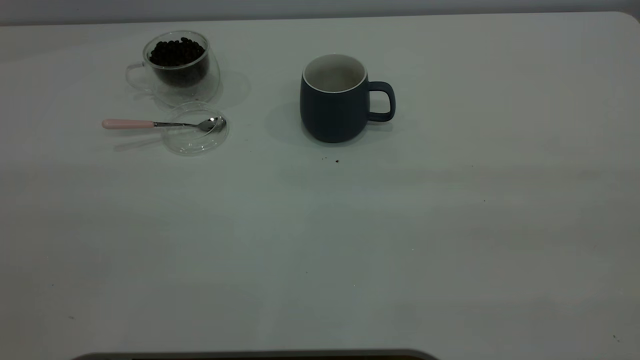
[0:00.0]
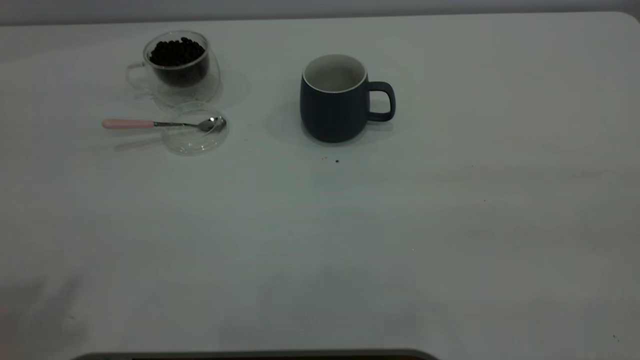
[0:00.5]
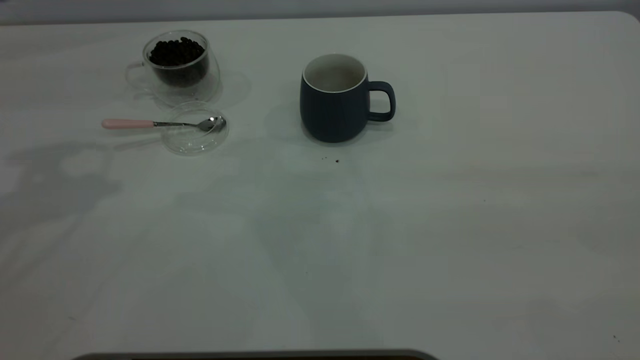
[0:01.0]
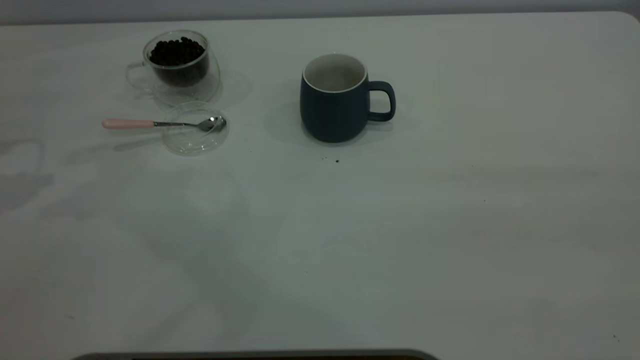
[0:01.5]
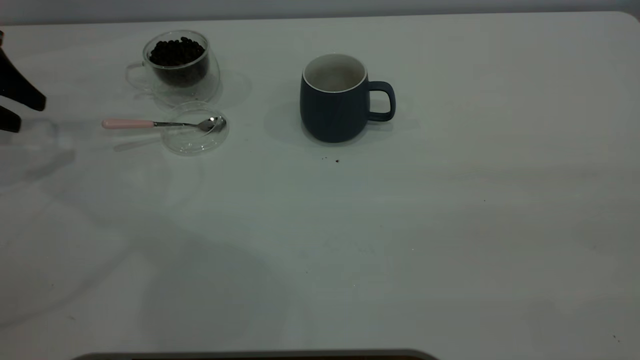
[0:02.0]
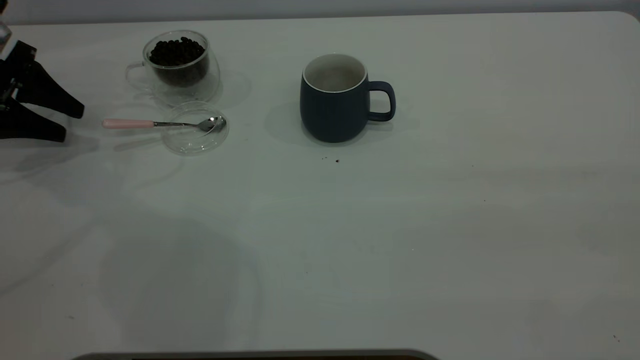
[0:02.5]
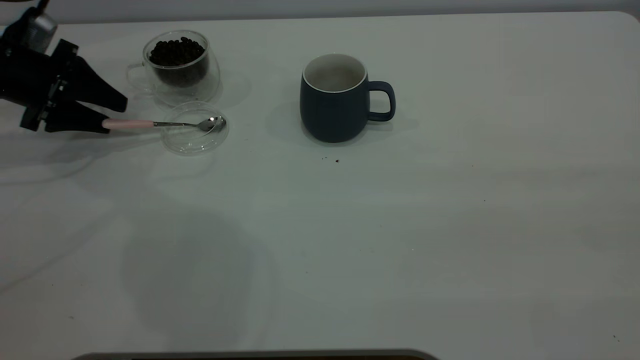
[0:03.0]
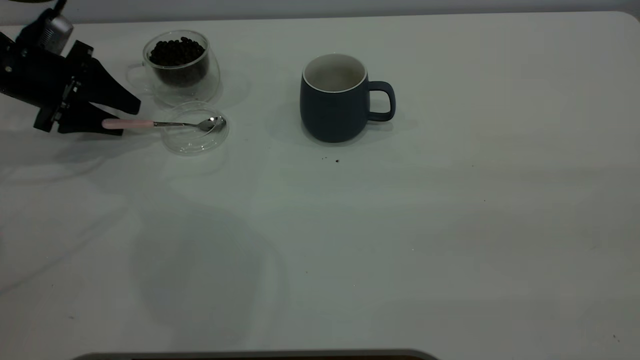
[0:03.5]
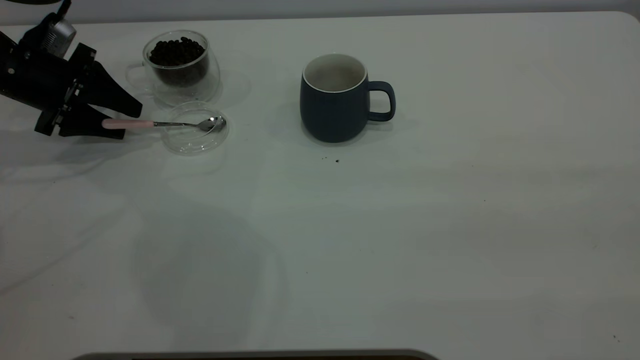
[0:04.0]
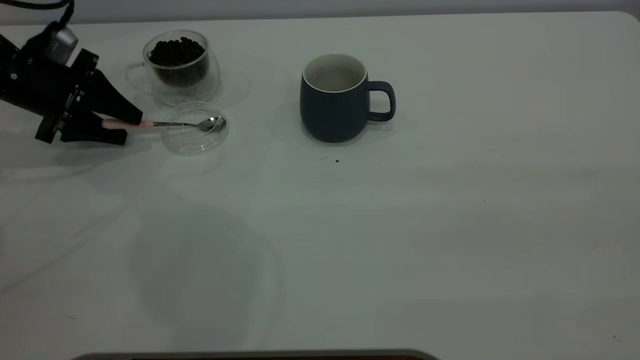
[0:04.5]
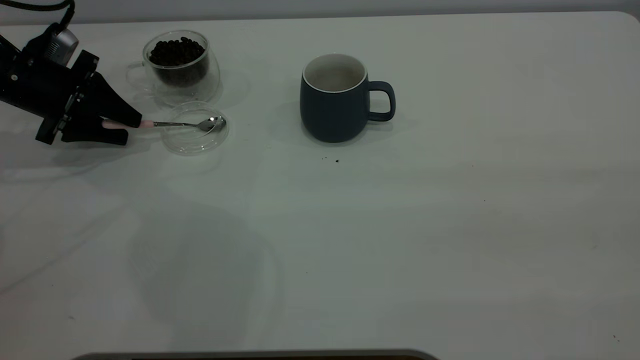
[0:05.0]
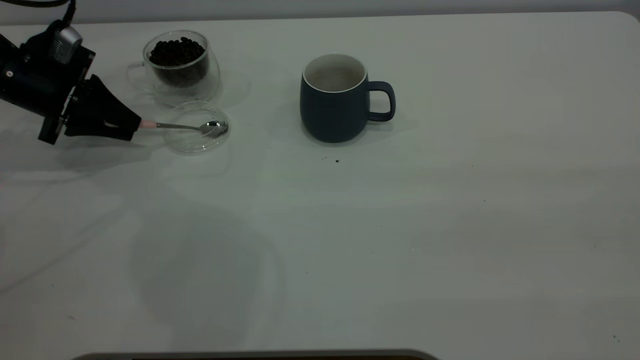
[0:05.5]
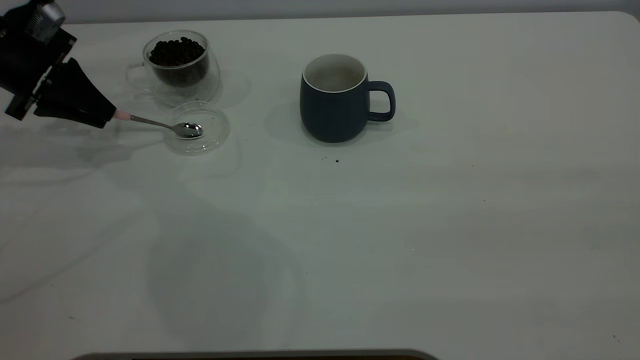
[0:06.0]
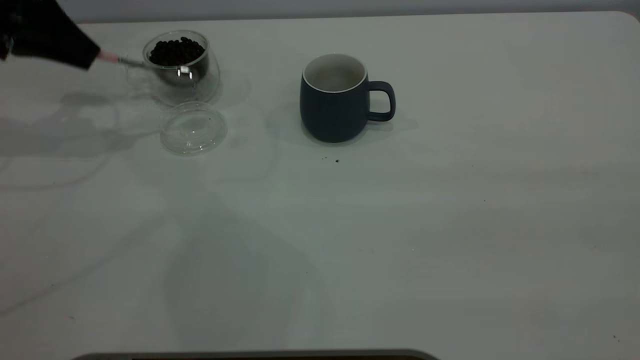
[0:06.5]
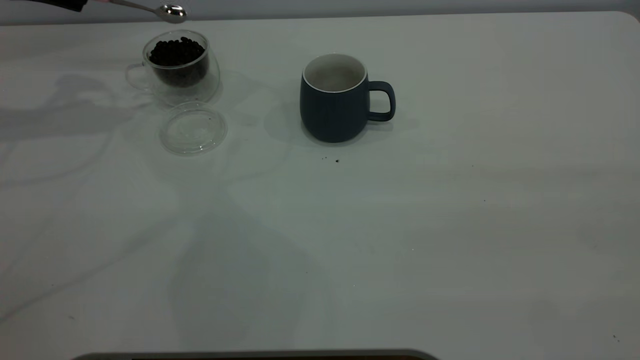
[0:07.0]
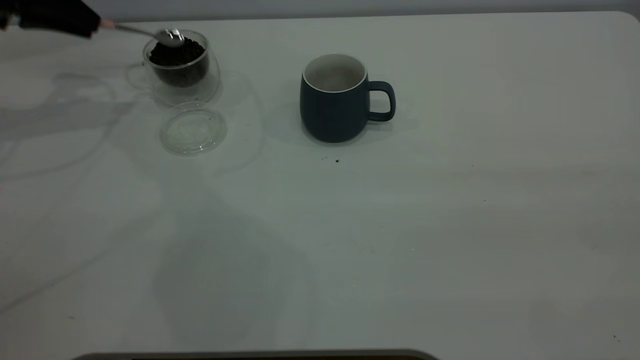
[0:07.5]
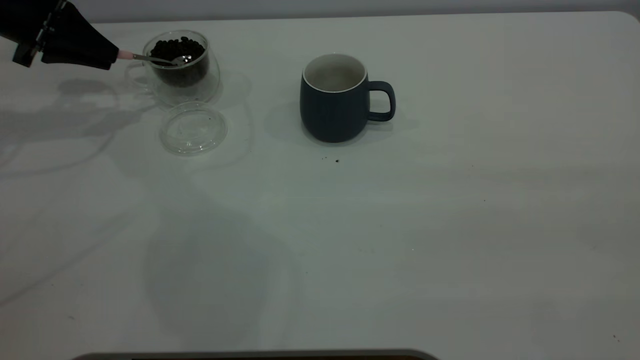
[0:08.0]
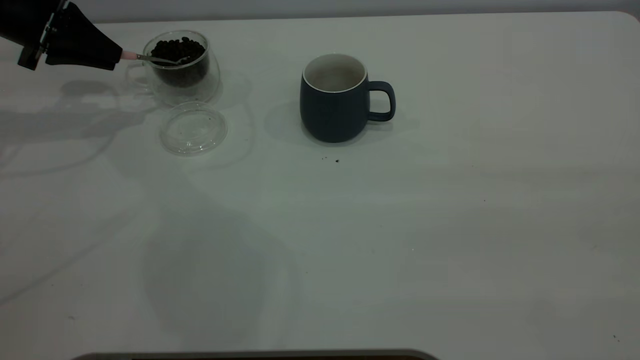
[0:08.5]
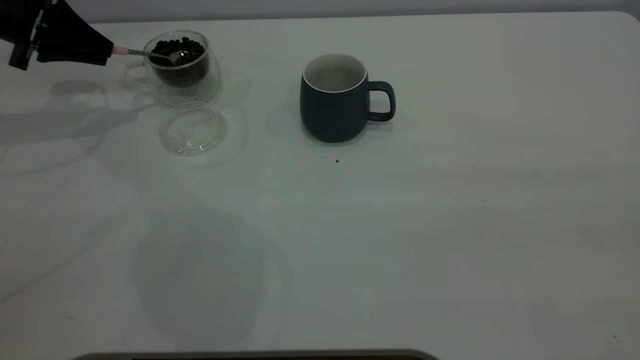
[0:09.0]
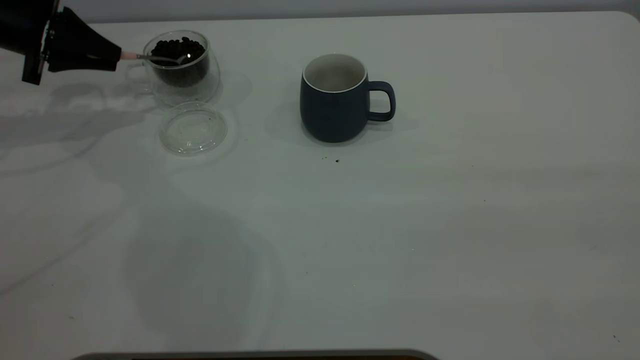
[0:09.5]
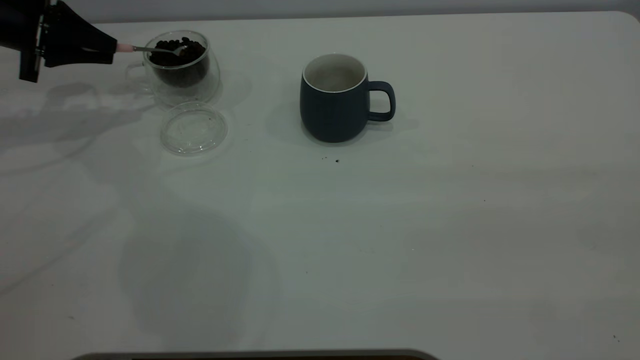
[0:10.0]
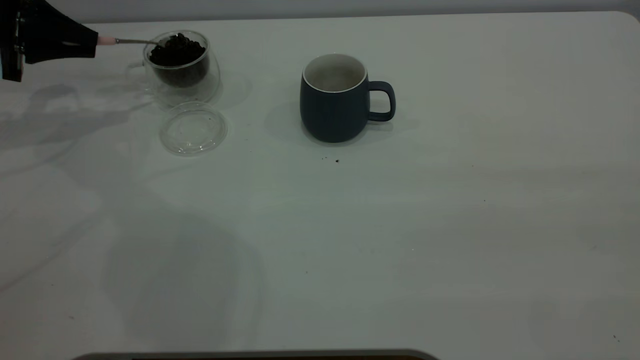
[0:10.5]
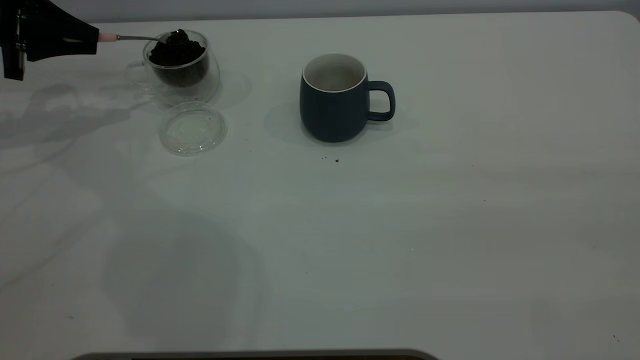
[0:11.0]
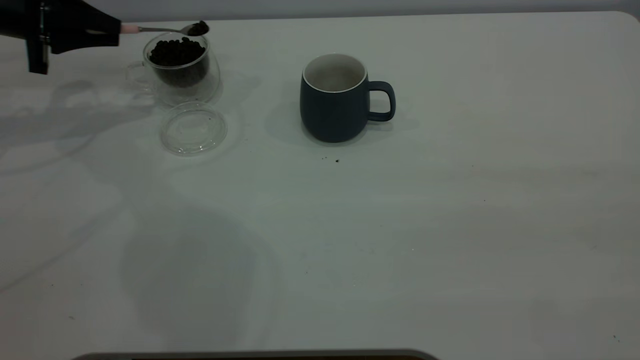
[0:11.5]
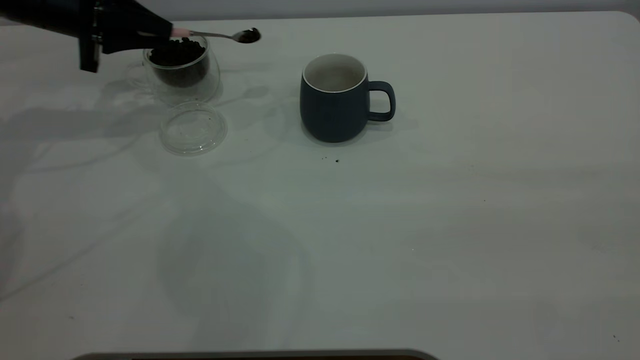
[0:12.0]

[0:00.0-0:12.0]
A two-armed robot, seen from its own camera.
Task of the whole recording: the right gripper place the grey cup in the center of the table, the left gripper take the pink spoon from the cup lid and scoop out the coffee beans from the coffee cup and put them into the grey cup, the left gripper put the spoon back into the cup lid.
Step, 0:00.0 to 0:06.0: Pick up the spoon.
0:00.0 to 0:02.0: The left gripper moves forward and downward, approximately 50 cm.
0:02.0 to 0:04.0: The left gripper heads to the right and downward, covering approximately 10 cm.
0:04.0 to 0:06.0: The left gripper closes.
0:06.0 to 0:08.0: The left gripper reaches some 10 cm upward, then returns.
0:08.0 to 0:10.0: The grippers stay close to where they were, moving slightly.
0:10.0 to 0:12.0: The left gripper heads to the right, covering about 10 cm.

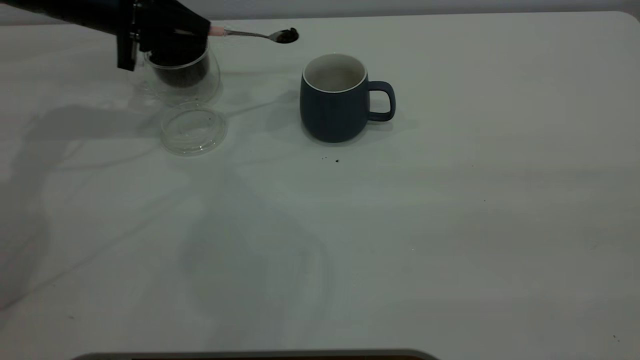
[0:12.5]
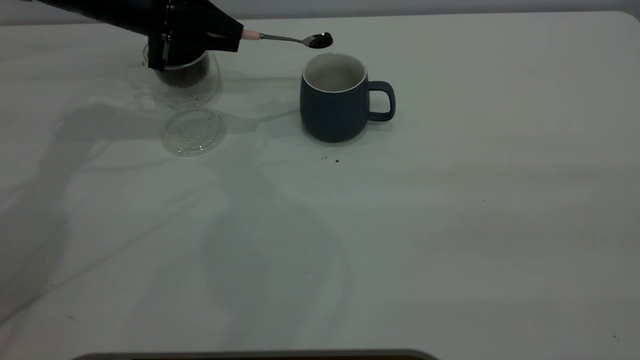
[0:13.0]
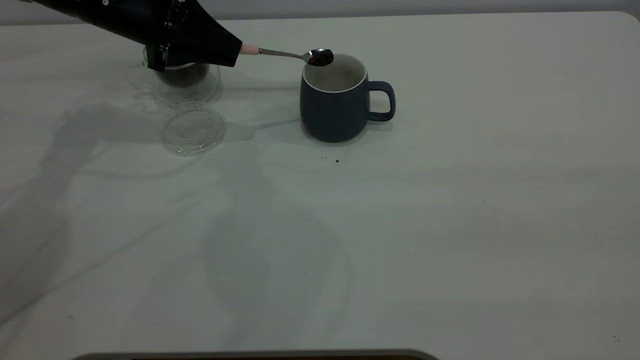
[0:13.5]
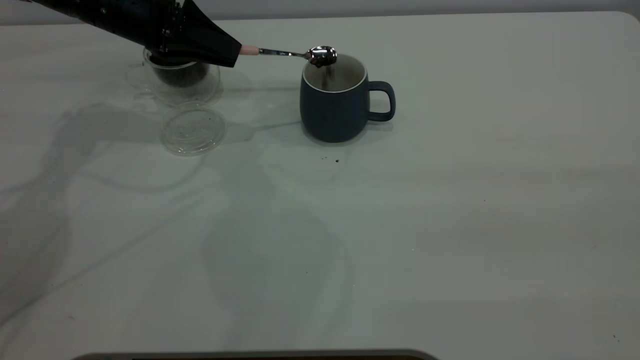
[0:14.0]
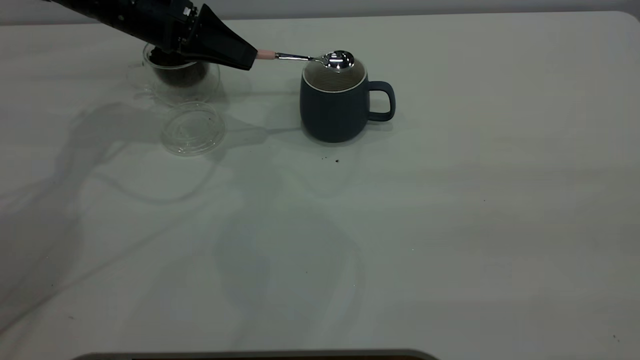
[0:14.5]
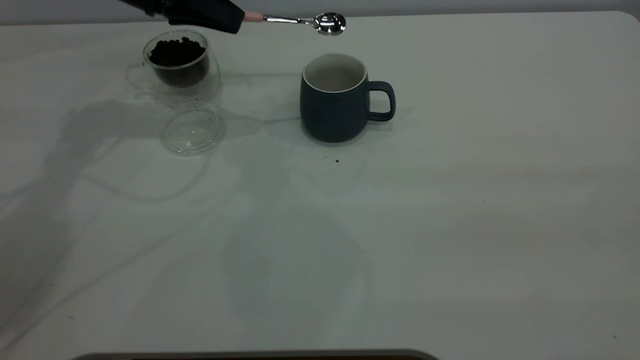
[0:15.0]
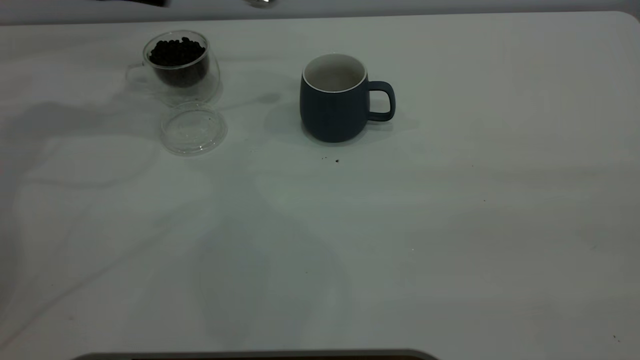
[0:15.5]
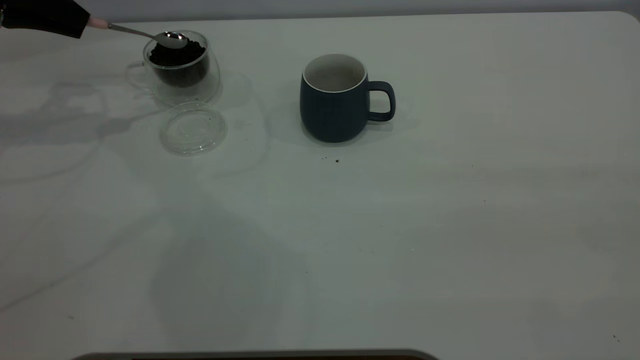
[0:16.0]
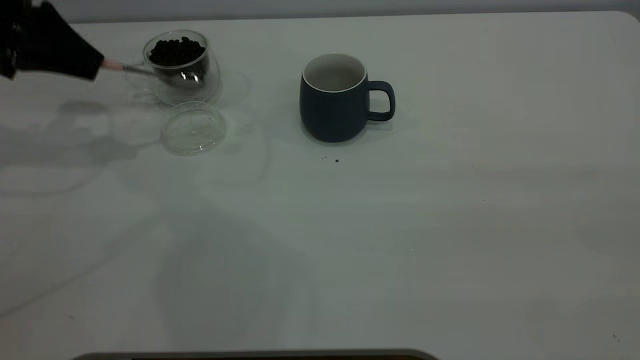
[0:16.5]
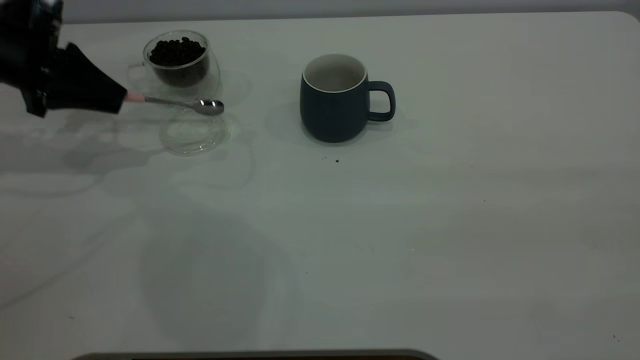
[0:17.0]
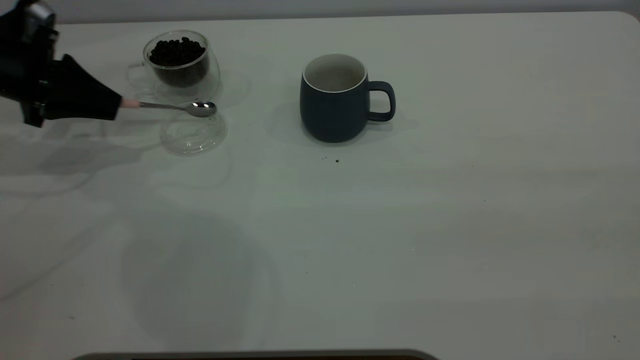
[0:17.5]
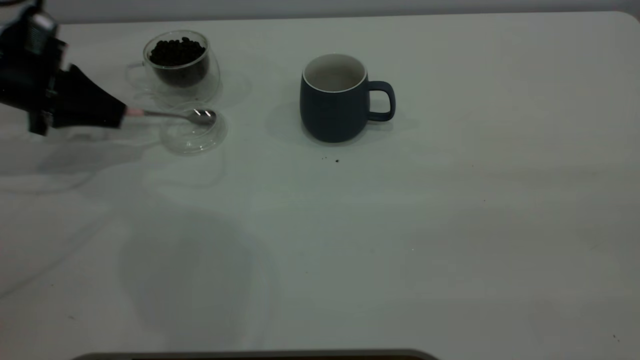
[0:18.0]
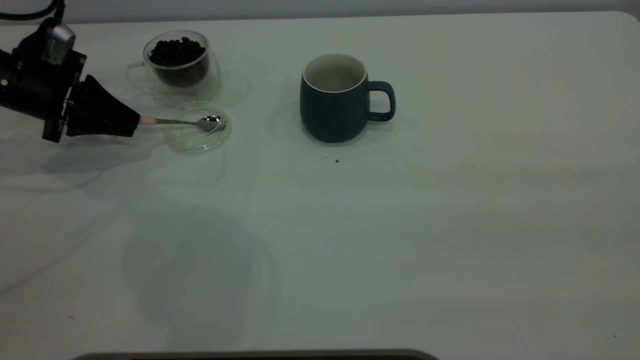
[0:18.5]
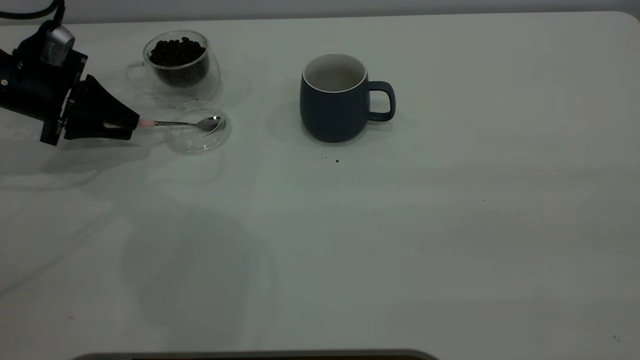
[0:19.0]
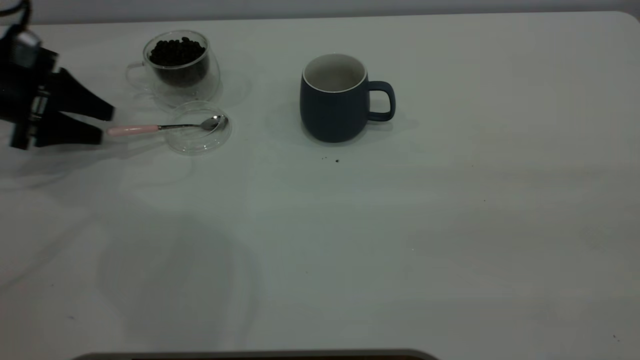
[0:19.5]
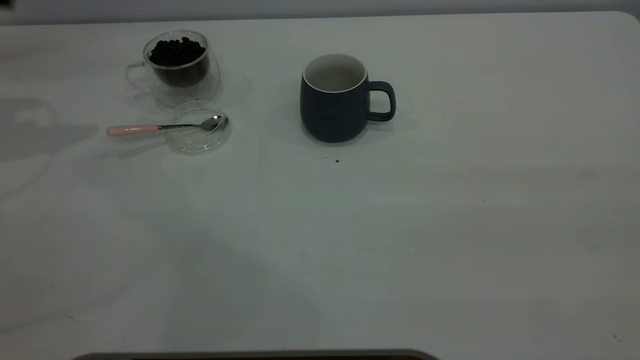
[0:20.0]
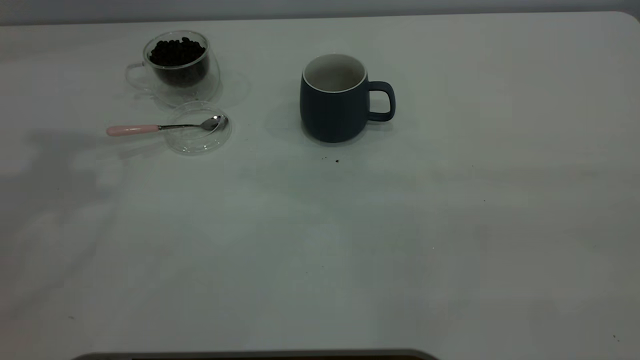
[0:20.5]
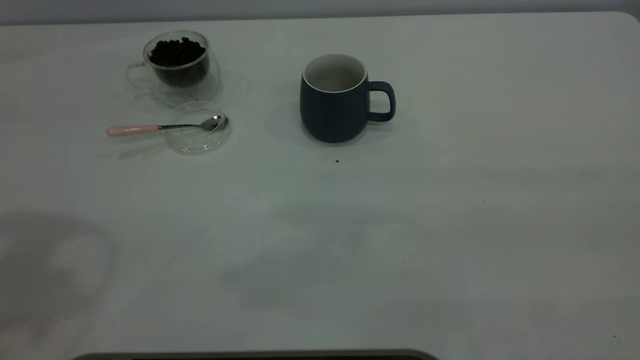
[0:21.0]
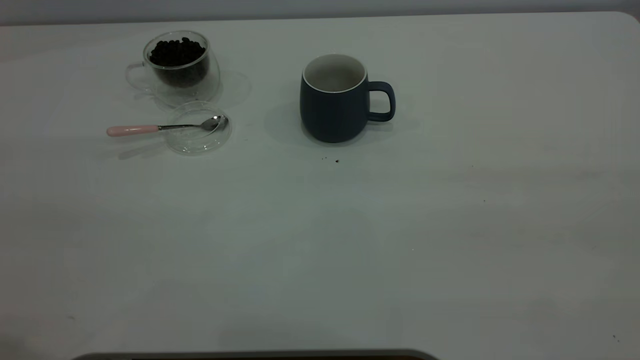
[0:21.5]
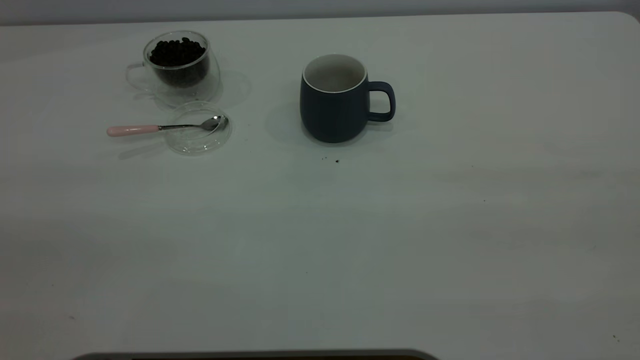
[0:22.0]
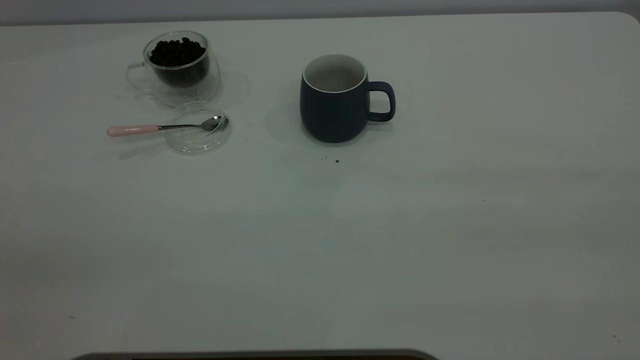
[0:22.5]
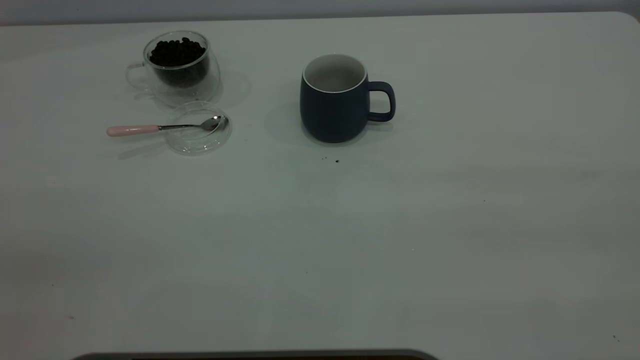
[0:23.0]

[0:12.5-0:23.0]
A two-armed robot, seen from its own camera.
Task of the whole recording: the right gripper place the grey cup in the center of the table, the left gripper take the pink spoon from the cup lid and scoop out the coffee beans from the coffee cup and put them into the grey cup, the left gripper put the spoon back into the cup lid.
Step, 0:12.5 to 0:15.0: Scoop a spoonful of beans into the cup.
Step, 0:15.5 to 0:19.5: Place the spoon back in its original place.
0:12.5 to 0:14.5: The left gripper goes roughly 5 cm to the right.
0:14.5 to 0:16.5: The left gripper heads to the left, covering roughly 15 cm.
0:16.5 to 0:19.0: The left gripper shifts approximately 10 cm downward, and opens.
0:19.0 to 0:21.0: The left gripper heads upward and backward, covering roughly 40 cm, and opens up.
